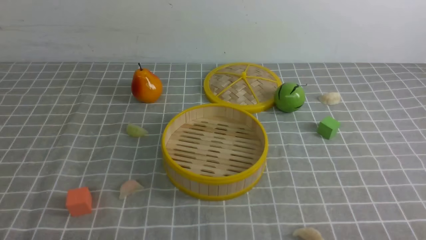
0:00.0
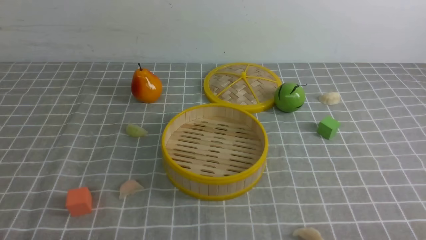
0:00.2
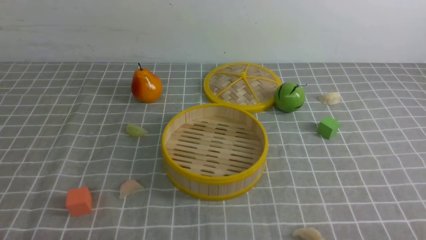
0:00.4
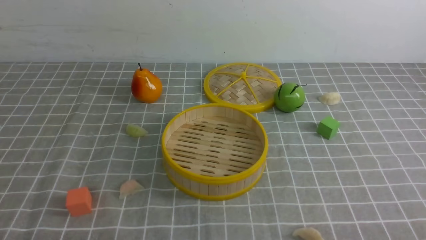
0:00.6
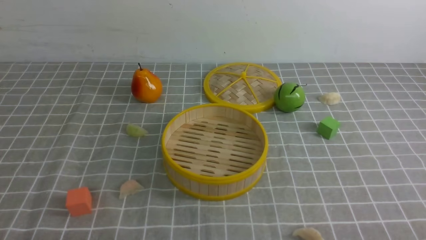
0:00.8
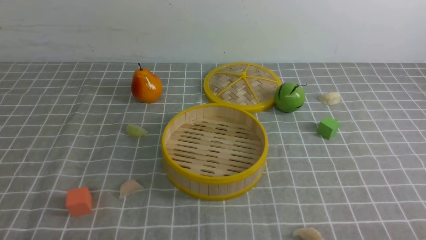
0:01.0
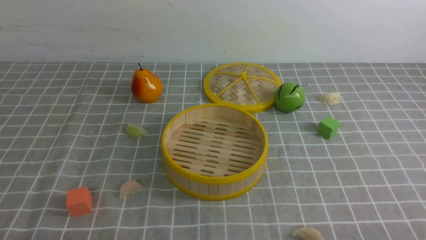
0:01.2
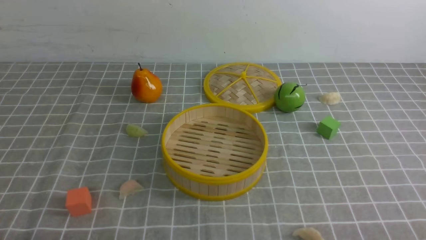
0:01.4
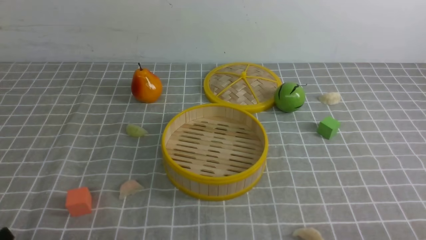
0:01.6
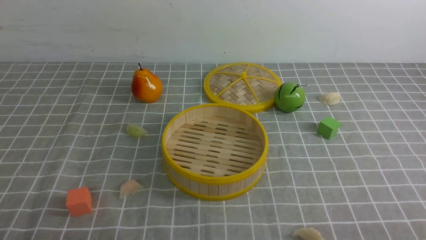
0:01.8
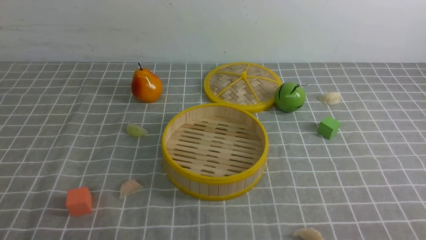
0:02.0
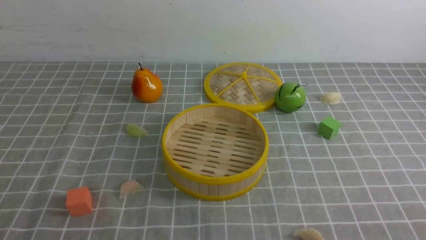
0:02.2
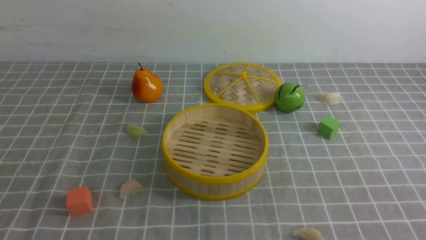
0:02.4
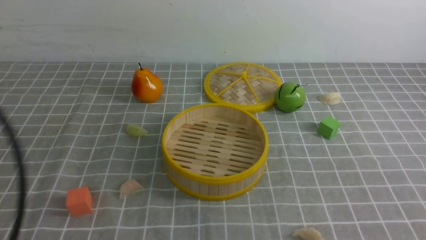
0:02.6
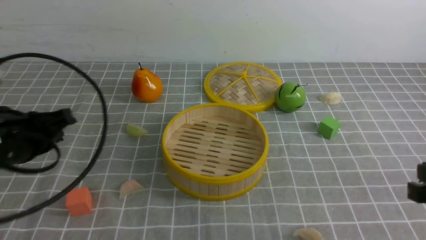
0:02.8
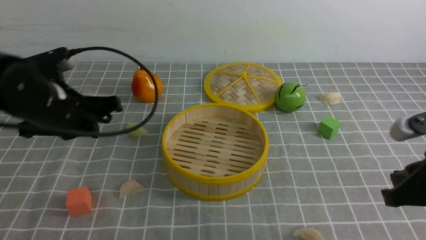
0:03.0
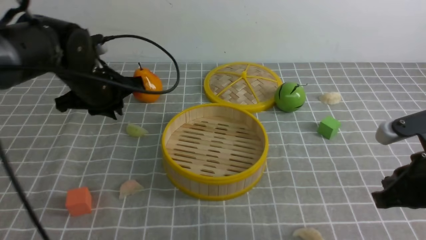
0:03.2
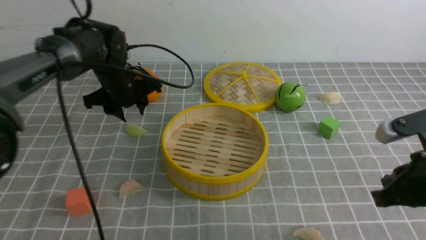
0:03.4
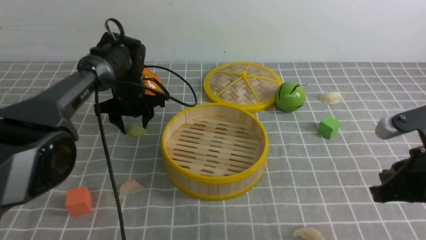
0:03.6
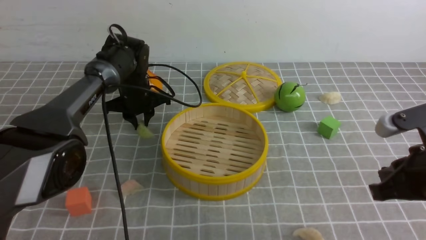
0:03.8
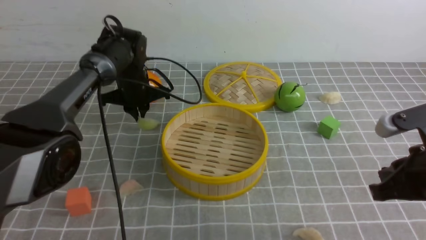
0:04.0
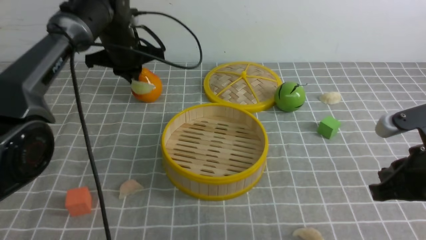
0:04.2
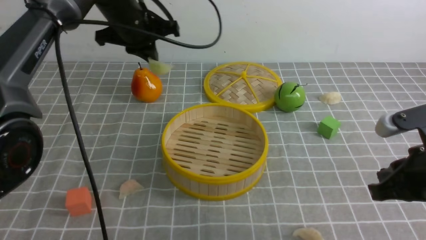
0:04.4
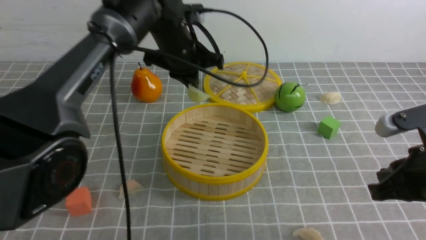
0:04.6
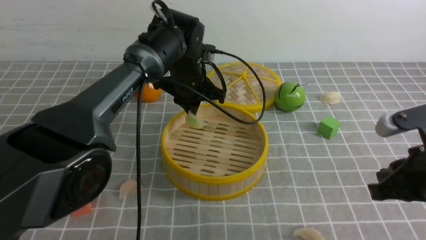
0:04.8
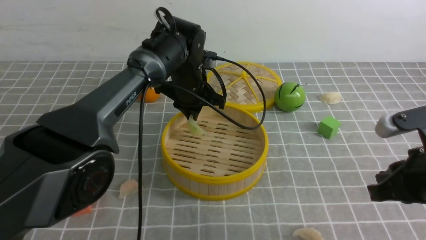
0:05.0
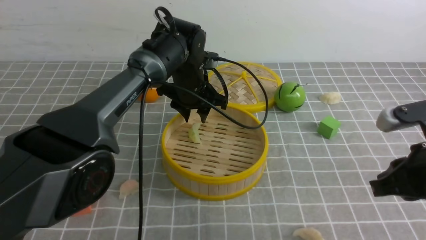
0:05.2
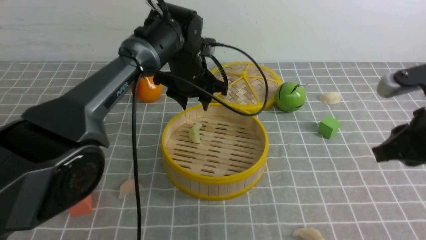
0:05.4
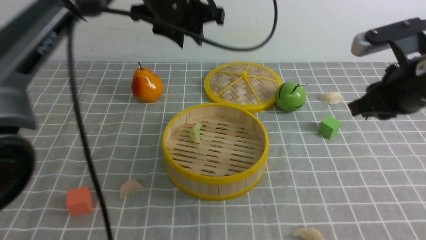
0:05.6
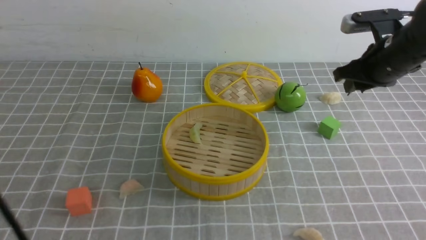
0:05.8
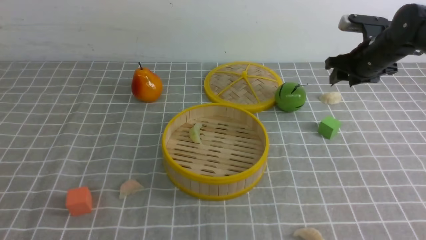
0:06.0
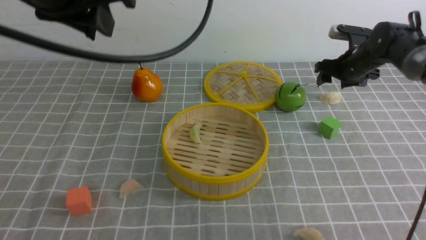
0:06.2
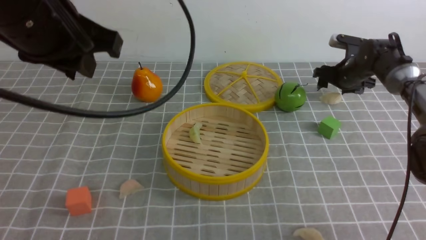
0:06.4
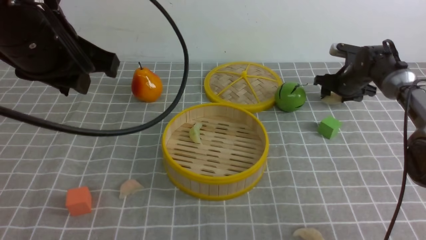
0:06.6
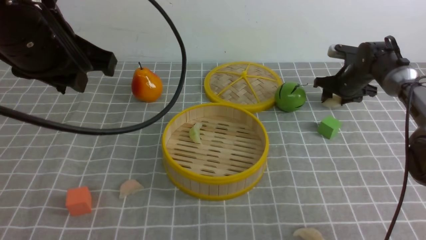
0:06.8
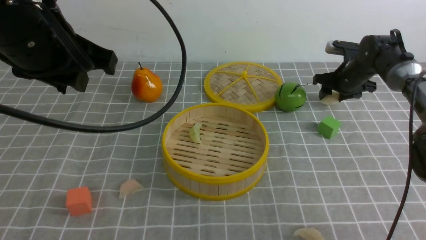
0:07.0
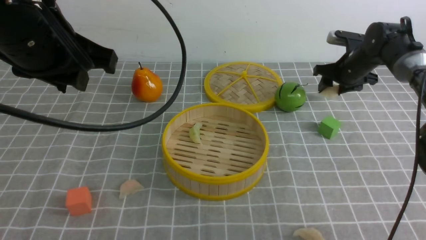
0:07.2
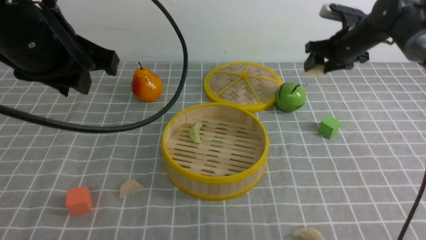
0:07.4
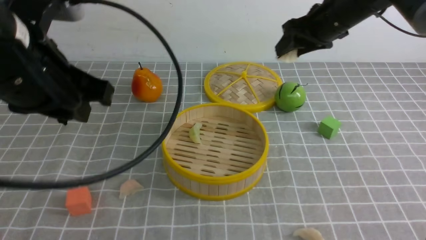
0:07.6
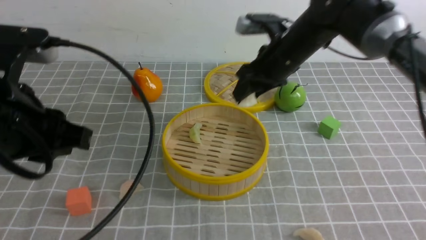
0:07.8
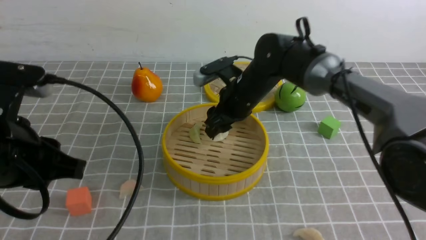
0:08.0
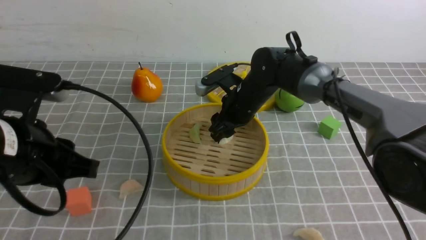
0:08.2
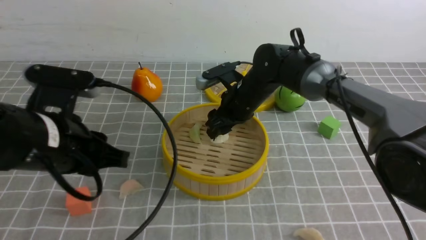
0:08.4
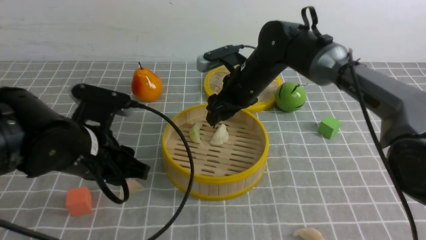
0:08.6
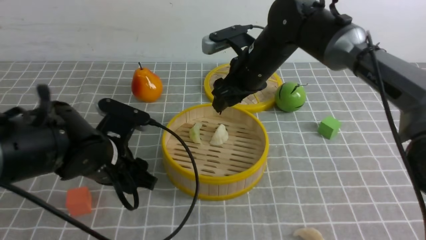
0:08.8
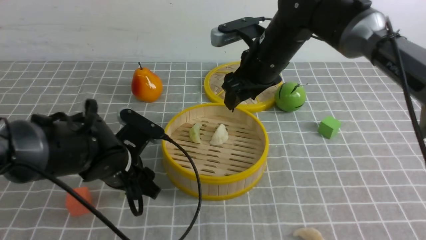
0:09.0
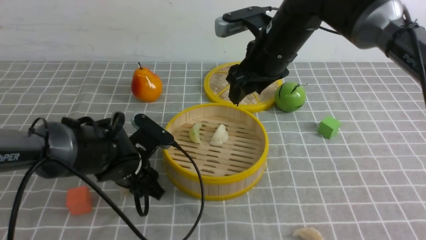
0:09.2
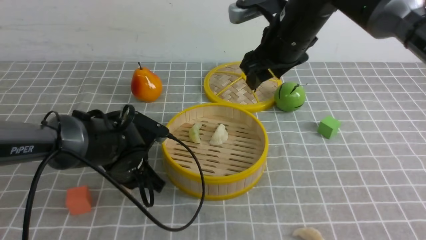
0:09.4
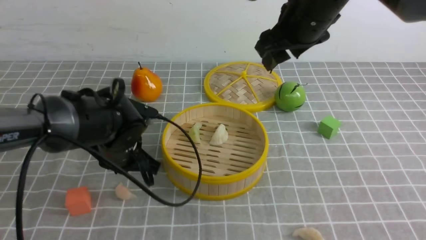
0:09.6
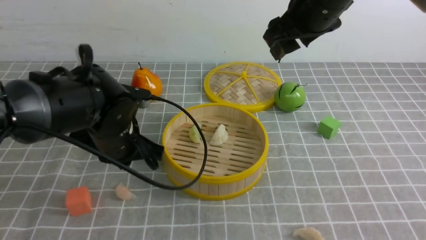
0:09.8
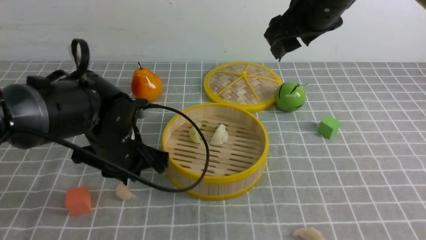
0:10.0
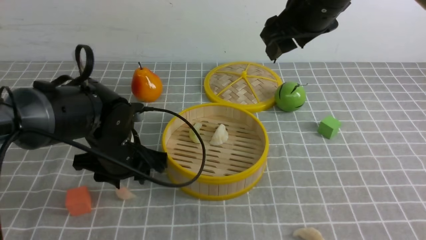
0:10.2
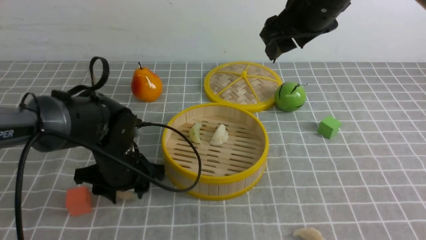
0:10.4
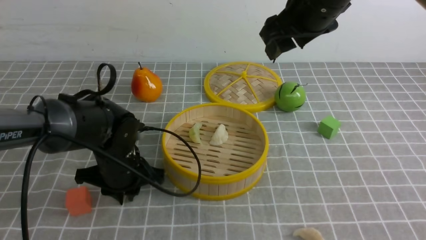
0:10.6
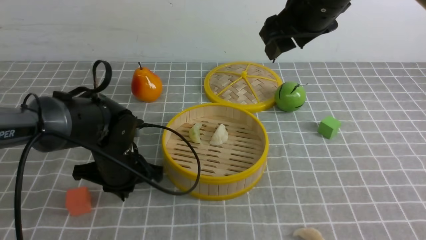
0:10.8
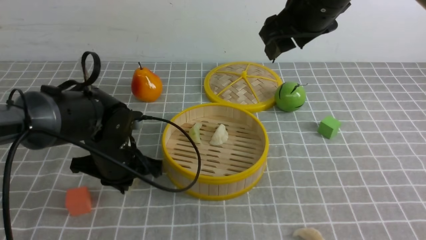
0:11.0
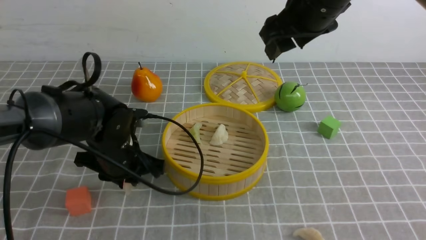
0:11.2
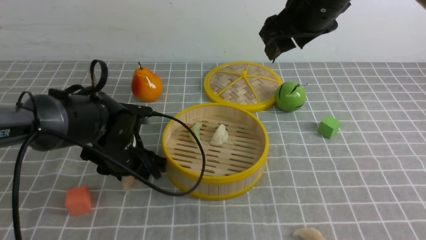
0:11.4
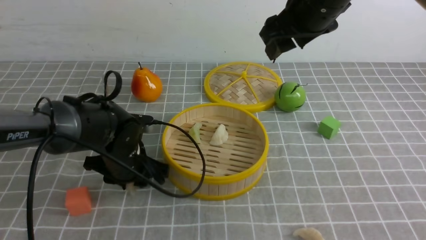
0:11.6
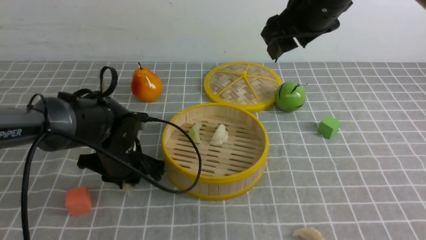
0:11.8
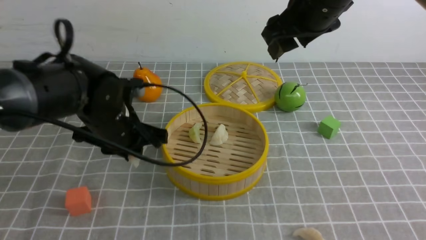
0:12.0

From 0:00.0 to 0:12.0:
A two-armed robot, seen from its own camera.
Task of the whole recording: put the dumplings into the steamer on the table with the grey tablecloth.
Step, from 0:00.0 to 0:04.0: use the left arm to grab a dumpling.
Step, from 0:04.2 to 0:05.2: use the left arm to put the dumpling into the steamer.
Step, from 0:05.4 to 0:07.0: use the right arm to grab a dumpling.
Step, from 0:07.2 to 0:08.8: use the right arm to put the dumpling into the steamer.
Step, from 0:09.0 to 0:11.8: use the left arm to grab a dumpling.
From 0:01.6 to 0:03.0: The left gripper is displaced forward by roughly 25 cm, and closes up; the right gripper heads forward and upward, covering approximately 15 cm, and closes.
From 0:03.0 to 0:04.4: The left gripper travels forward and to the right by roughly 20 cm, and opens, then closes again.
From 0:04.4 to 0:06.0: The right gripper moves forward, approximately 30 cm, and opens. Meanwhile the left gripper moves backward and upward, some 25 cm, and opens up.
From 0:06.0 to 0:07.6: The right gripper is displaced to the left by some 10 cm, and reaches about 10 cm downward, then returns, while the left gripper is displaced downward and backward by about 10 cm.
From 0:07.6 to 0:09.0: The right gripper travels to the left and backward by approximately 10 cm, while the left gripper heads downward, covering about 20 cm, and opens its fingers.
From 0:09.0 to 0:10.4: The left gripper closes, then reopens; the right gripper is displaced upward by some 10 cm.
From 0:10.4 to 0:12.0: The left gripper shifts about 5 cm upward, and closes up.

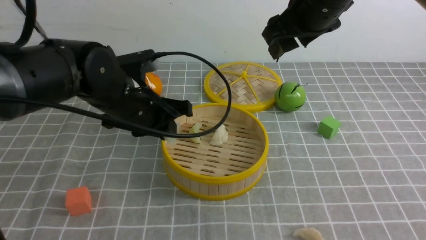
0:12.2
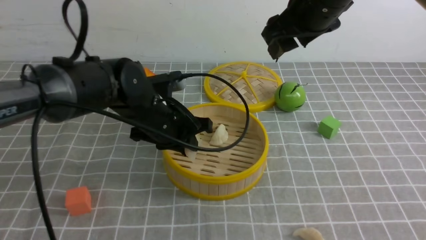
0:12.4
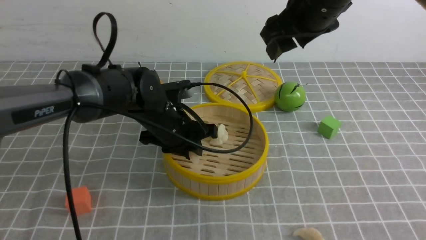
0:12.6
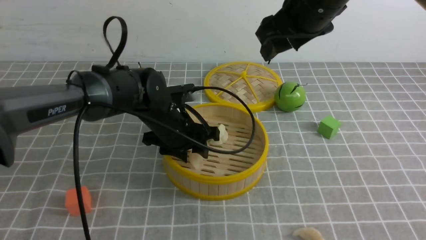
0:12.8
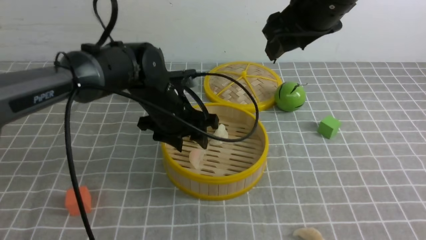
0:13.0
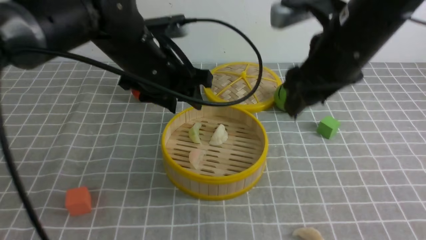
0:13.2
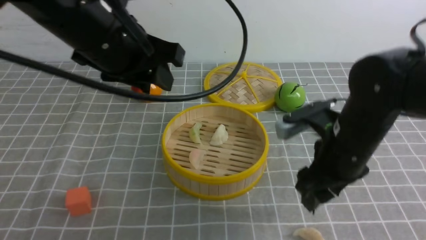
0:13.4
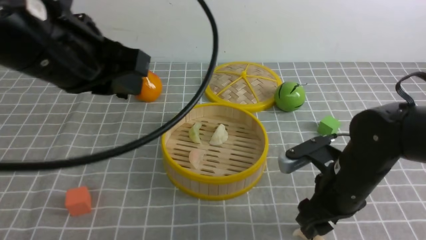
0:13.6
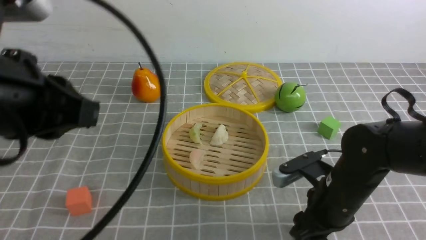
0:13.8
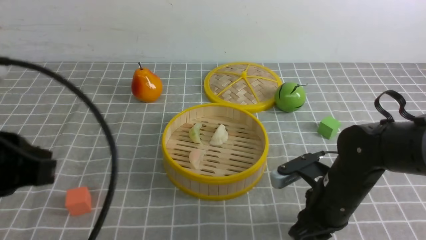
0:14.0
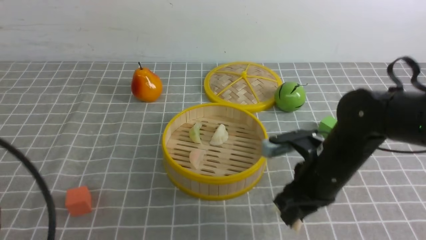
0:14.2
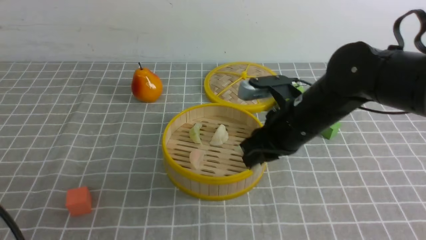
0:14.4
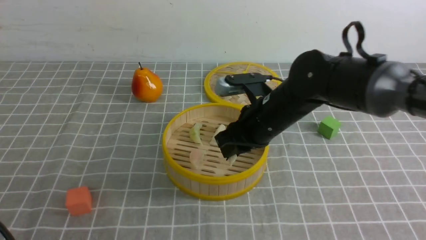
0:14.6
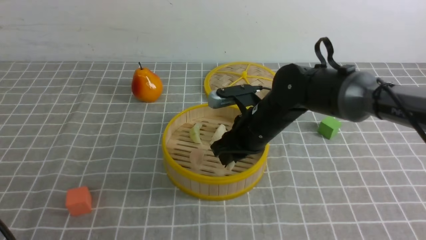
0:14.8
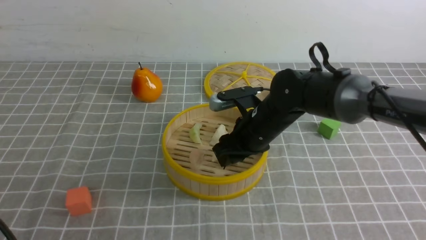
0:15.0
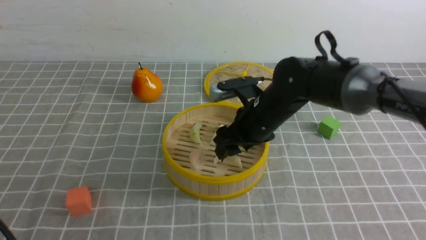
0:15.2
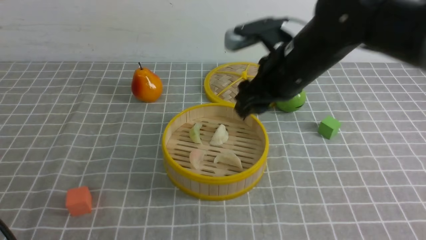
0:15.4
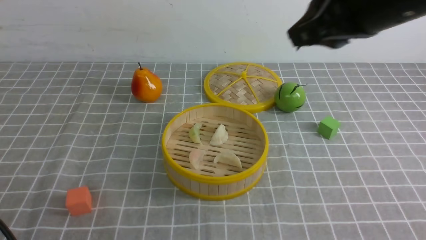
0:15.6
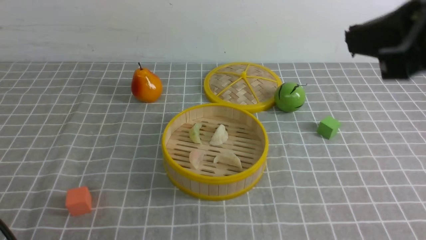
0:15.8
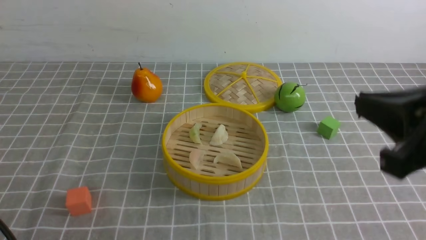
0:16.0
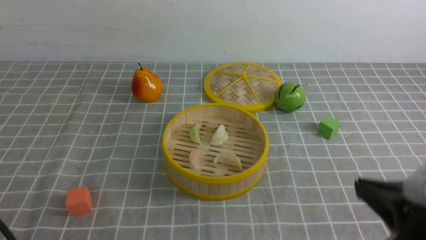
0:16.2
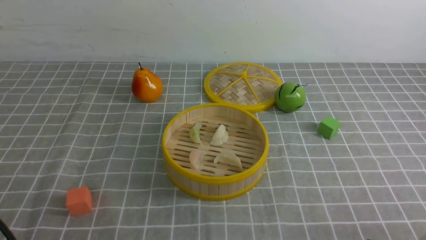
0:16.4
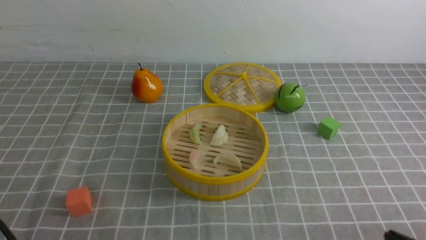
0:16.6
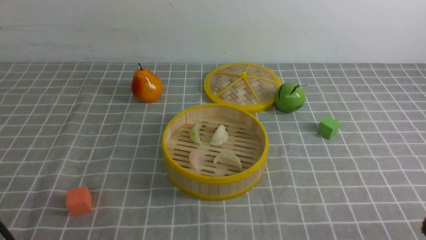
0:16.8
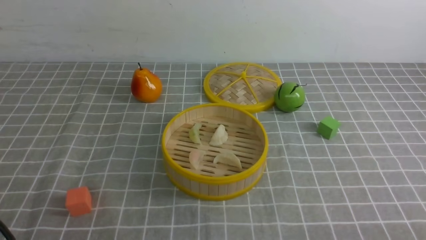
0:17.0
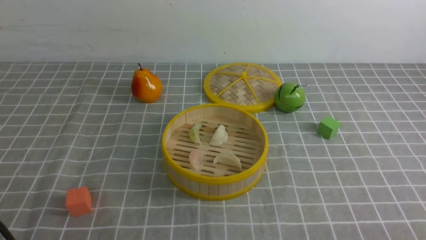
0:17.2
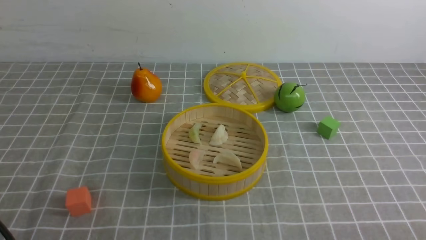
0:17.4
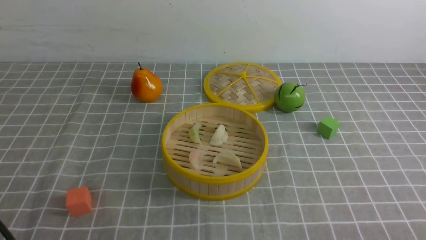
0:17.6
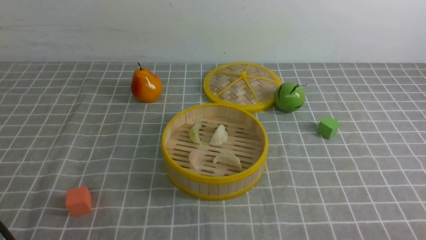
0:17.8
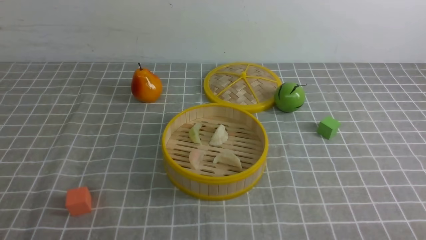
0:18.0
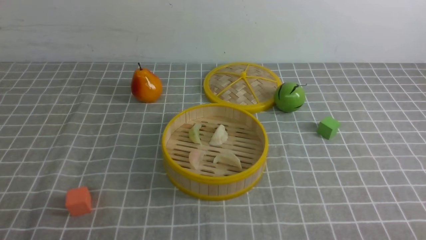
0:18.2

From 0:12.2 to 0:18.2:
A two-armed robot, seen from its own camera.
Task of the whole recording: put the dumplings into the steamer on the table with the grey tablecloth.
Step, from 0:12.2 to 0:13.0: use the left arm to put the dumpling into the steamer.
Step, from 0:13.4 to 0:14.2: use the right arm to grab a dumpling.
Step, from 0:14.4 to 0:15.2: use the right arm to put the dumpling into the steamer.
From 0:12.2 to 0:13.8: The right gripper goes approximately 25 cm downward and backward. Meanwhile the left gripper shifts approximately 25 cm backward, upward and to the left, and opens, then closes again.
From 0:13.8 to 0:15.2: The left gripper shifts some 15 cm downward, backward and to the left; the right gripper heads forward, upward and to the left, covering about 15 cm.
From 0:15.2 to 0:16.6: The right gripper heads backward and to the right, covering some 35 cm, and closes its fingers.
